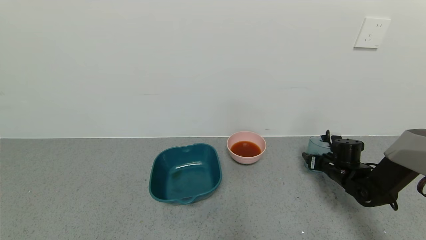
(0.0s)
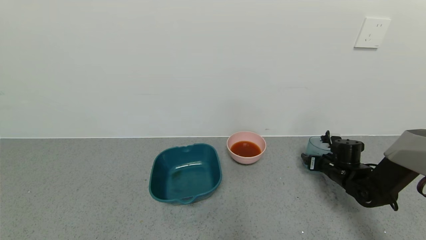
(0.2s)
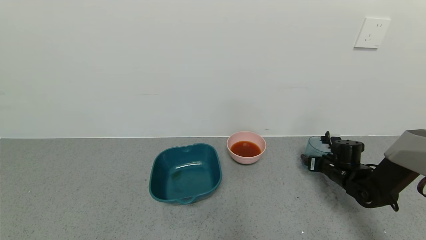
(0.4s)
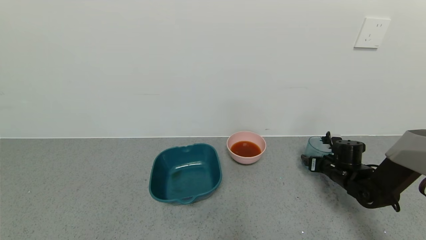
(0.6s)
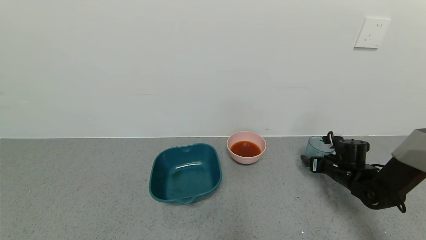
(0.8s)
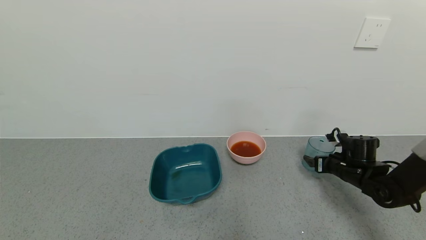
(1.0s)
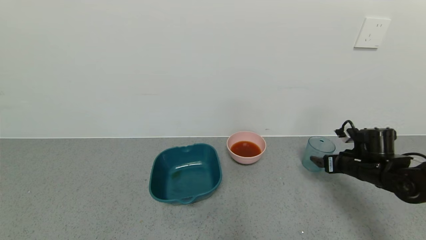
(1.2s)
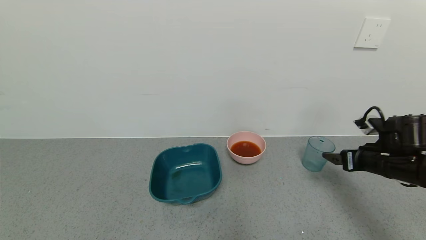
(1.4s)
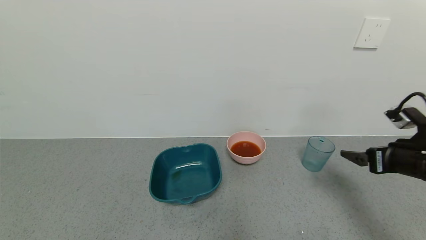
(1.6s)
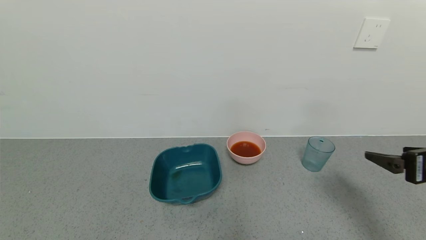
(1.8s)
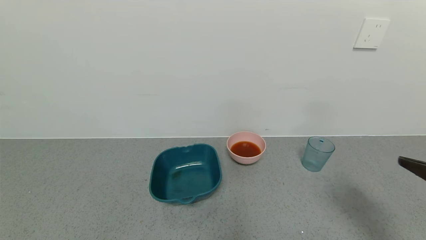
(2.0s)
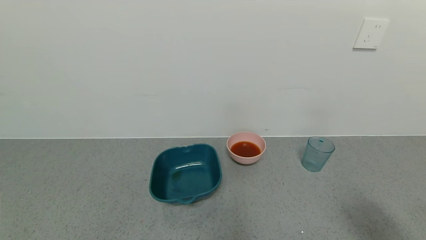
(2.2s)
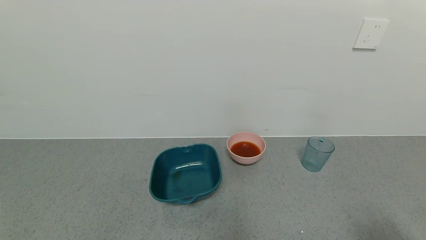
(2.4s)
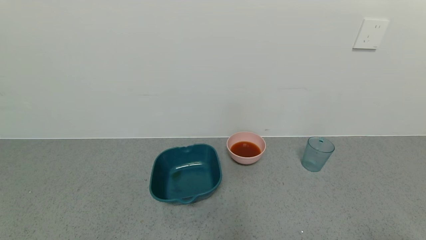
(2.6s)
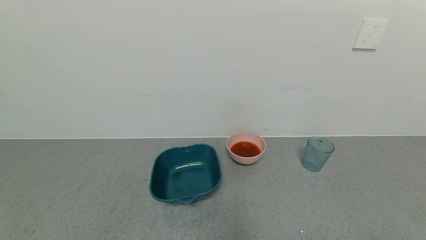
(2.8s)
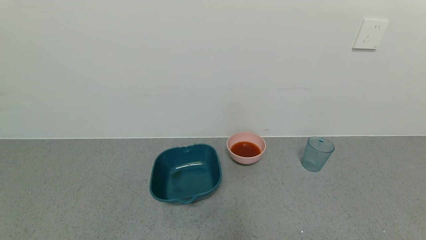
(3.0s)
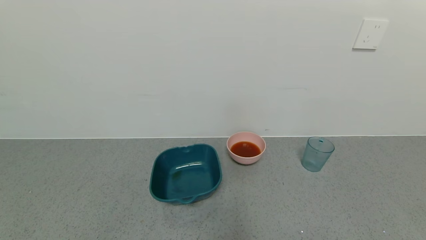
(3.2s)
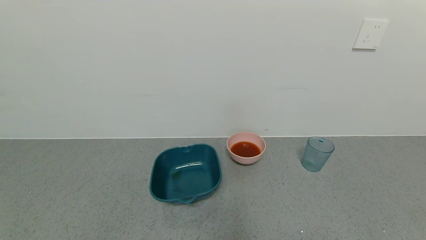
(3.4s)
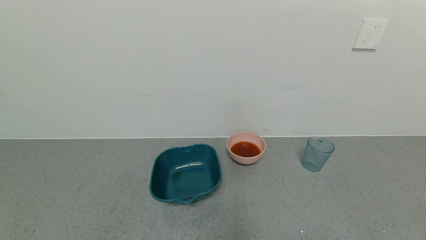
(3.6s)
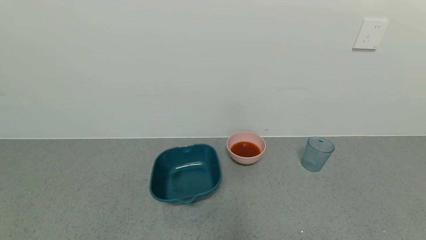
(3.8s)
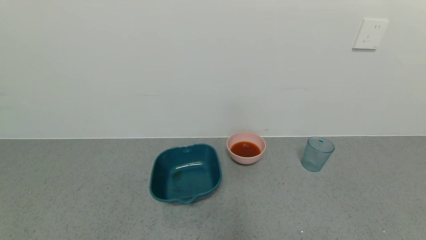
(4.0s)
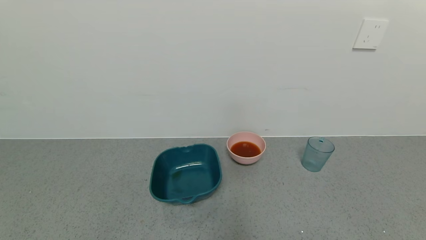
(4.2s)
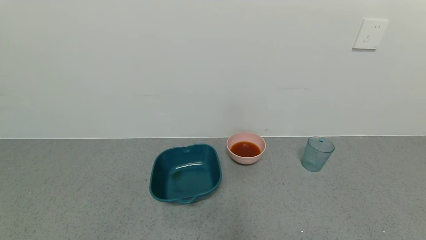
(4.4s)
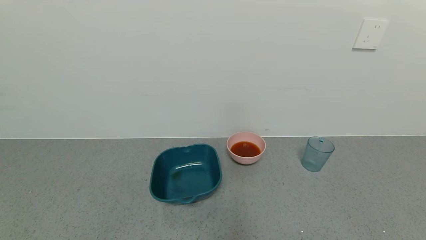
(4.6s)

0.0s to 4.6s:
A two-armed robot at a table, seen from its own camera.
Task of the whole recording: use a gripper to pick up the cup and pour the liquid into a bowl or tray.
0.0s to 1.6s: The right gripper goes some 25 cm upward and backward, and opens.
1.6s to 3.0s: The right gripper travels backward by roughly 30 cm.
